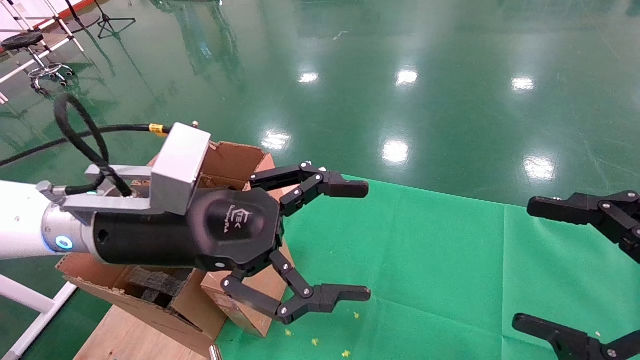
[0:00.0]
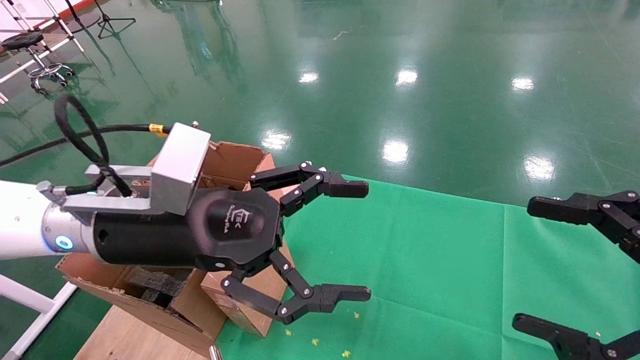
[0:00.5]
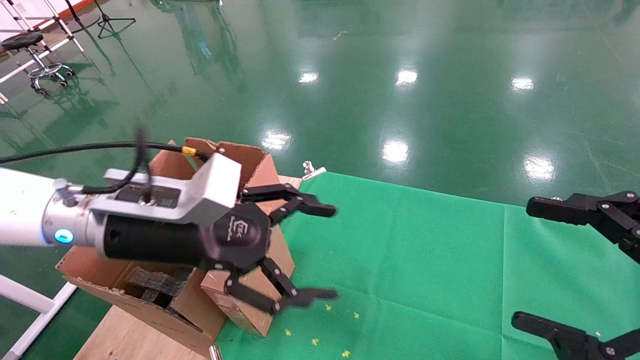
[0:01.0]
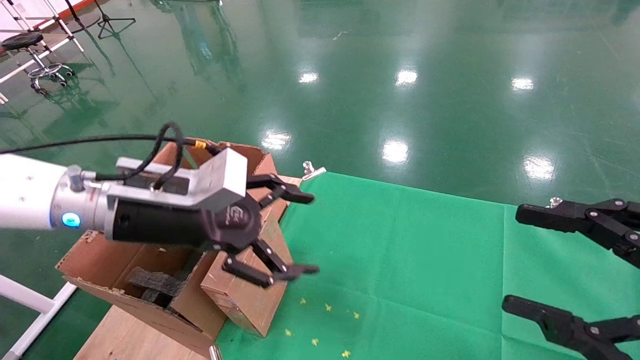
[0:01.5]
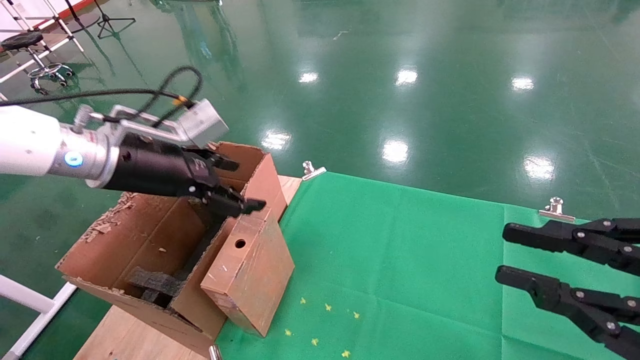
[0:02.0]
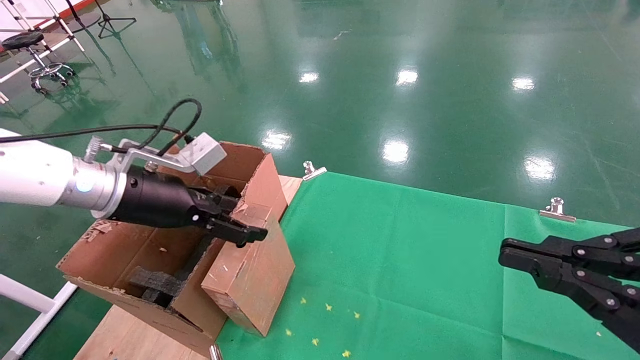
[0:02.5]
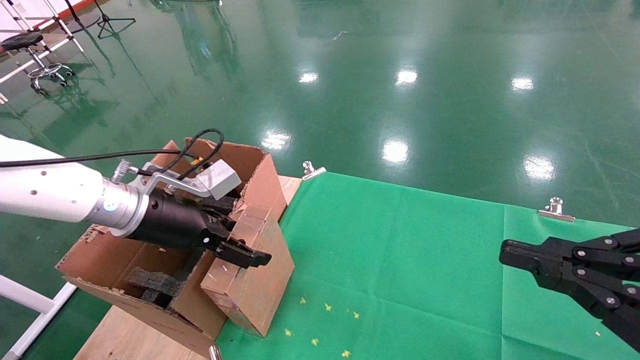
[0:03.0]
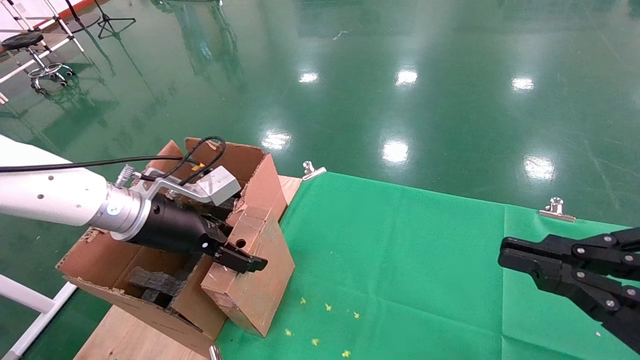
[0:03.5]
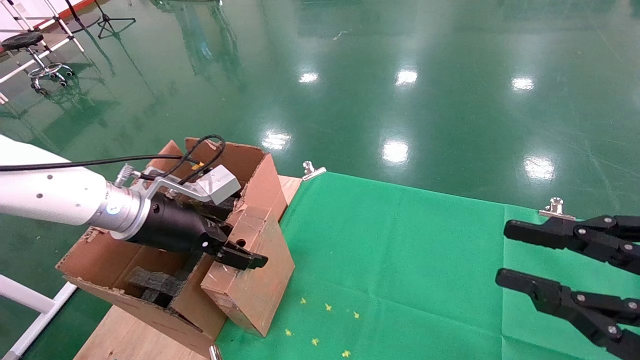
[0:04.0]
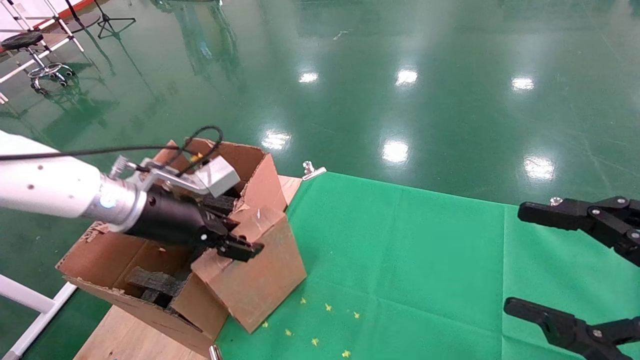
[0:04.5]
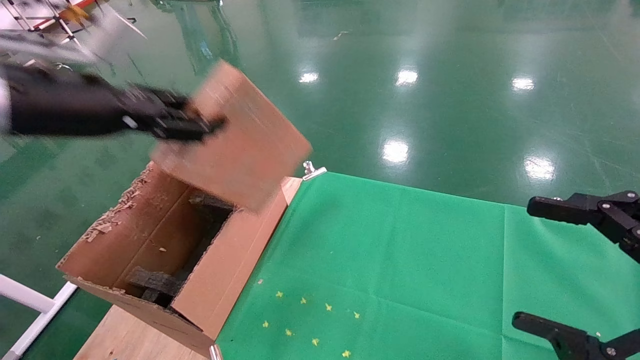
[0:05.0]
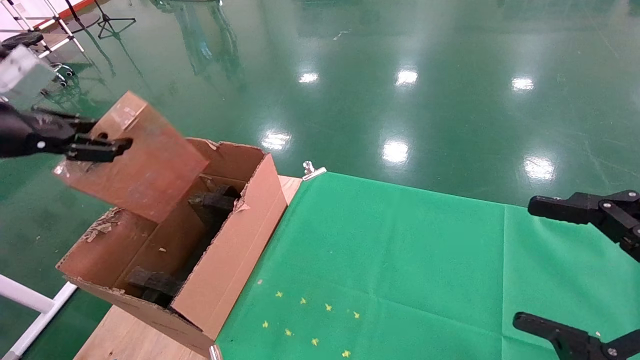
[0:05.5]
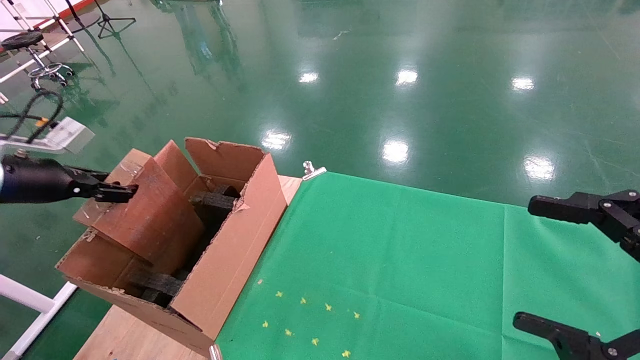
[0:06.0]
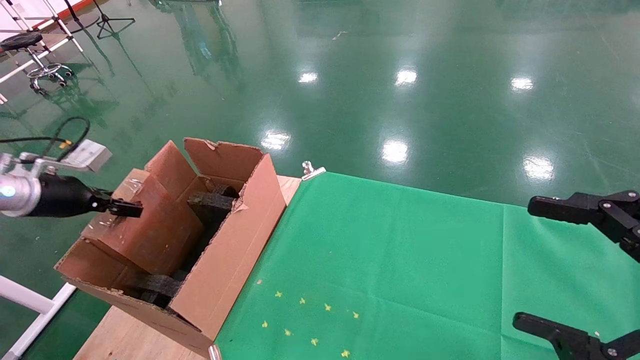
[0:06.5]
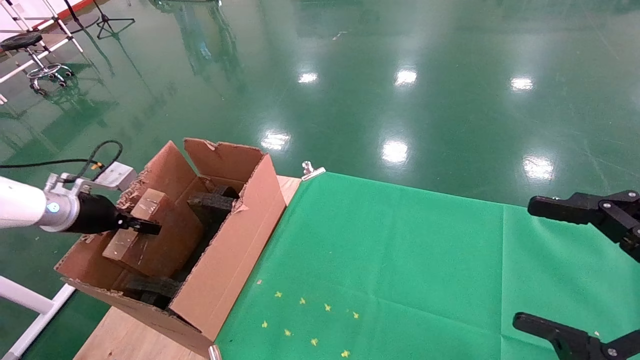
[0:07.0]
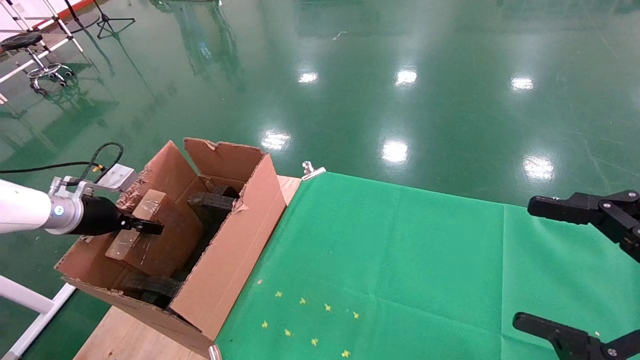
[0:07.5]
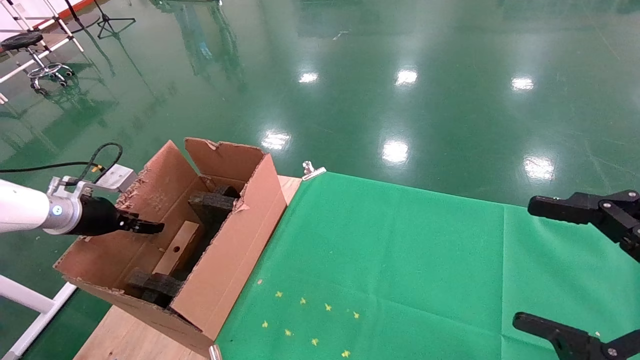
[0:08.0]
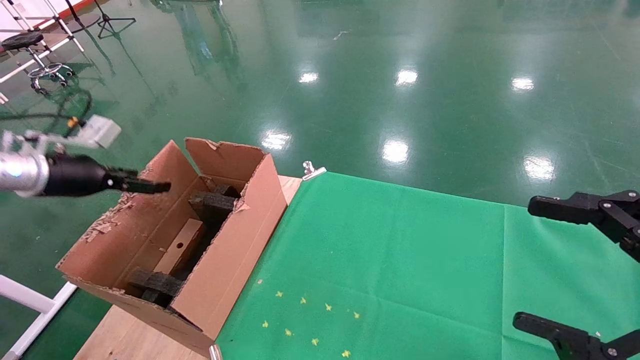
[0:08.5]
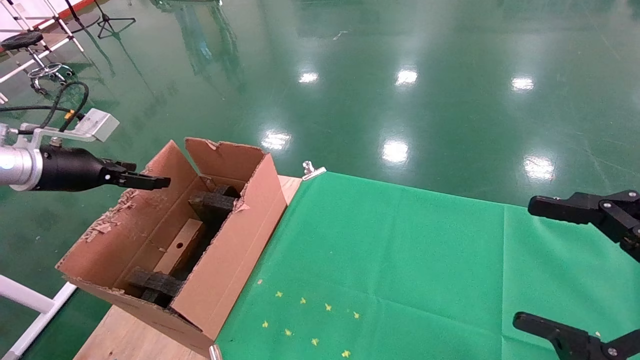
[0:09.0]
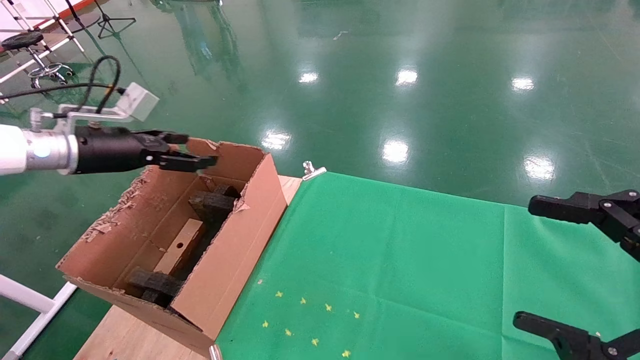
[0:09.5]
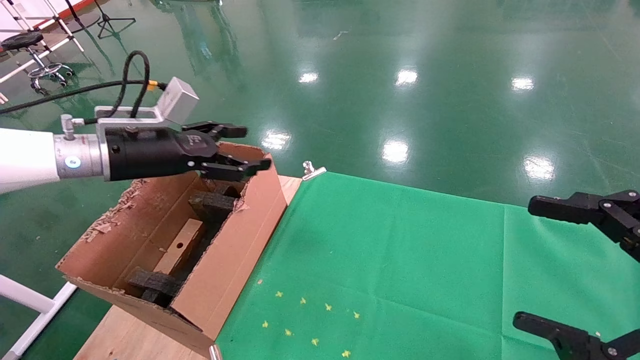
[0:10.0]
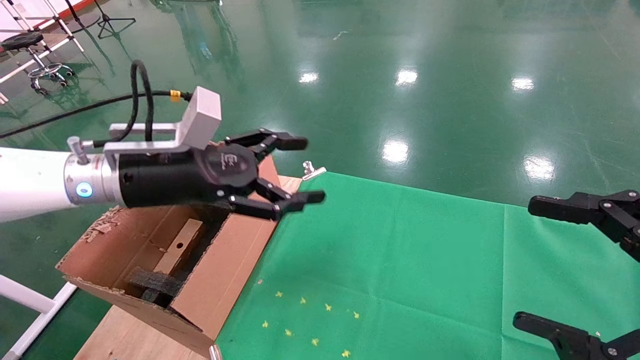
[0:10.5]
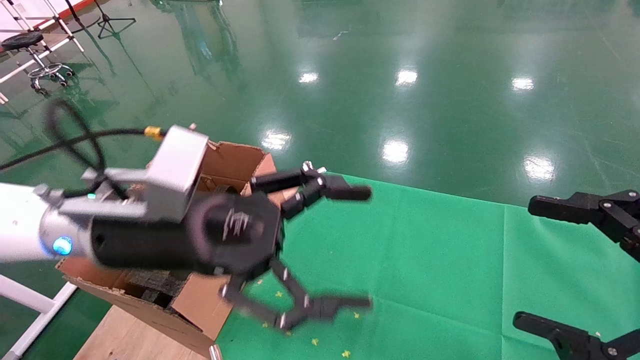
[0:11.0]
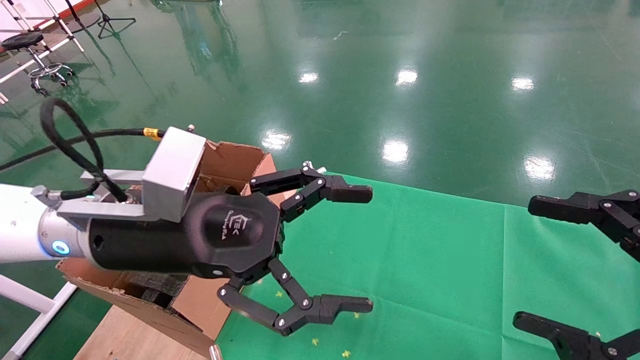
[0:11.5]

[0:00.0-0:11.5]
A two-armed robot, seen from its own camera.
Task of the whole recording: using a robotic arm to pick up a cardboard box and palace it the carton.
Step, 0:01.0 to 0:04.5: Pick up the mouse and the power cord paper box.
Step, 0:05.0 to 0:07.5: Place the mouse and the power cord paper box into the container.
0:00.0 to 0:02.0: The right gripper closes its fingers. The left gripper is displaced to the left and forward by approximately 10 cm.
0:02.0 to 0:04.0: The left gripper shifts approximately 5 cm downward.
0:04.0 to 0:06.0: The right gripper opens up. The left gripper shifts about 25 cm to the left, and closes up.
0:06.0 to 0:07.5: The left gripper goes approximately 10 cm downward and forward.
0:07.5 to 0:09.5: The left gripper shifts roughly 15 cm upward and to the right, and opens its fingers.
0:09.5 to 0:11.5: The left gripper goes some 25 cm to the right and backward.

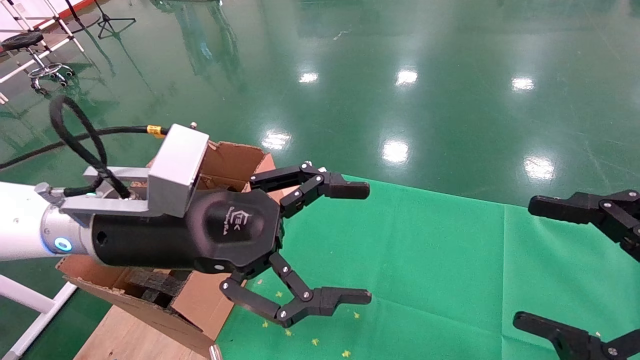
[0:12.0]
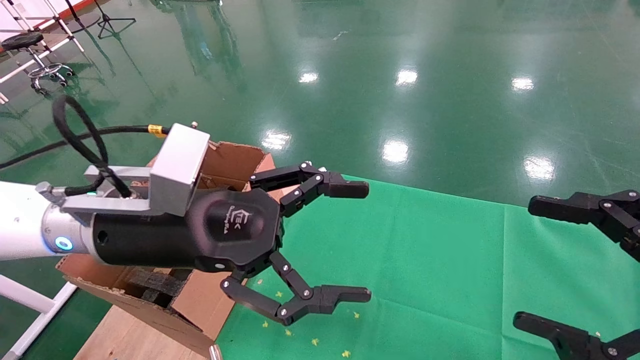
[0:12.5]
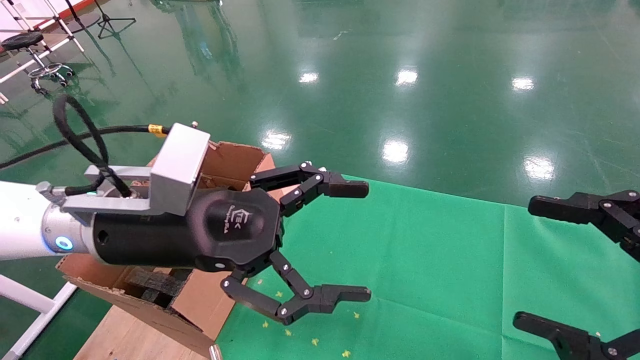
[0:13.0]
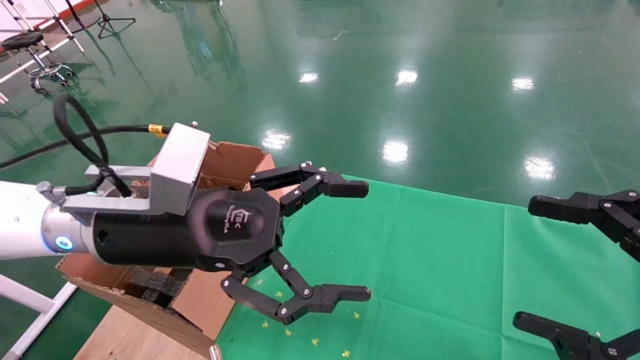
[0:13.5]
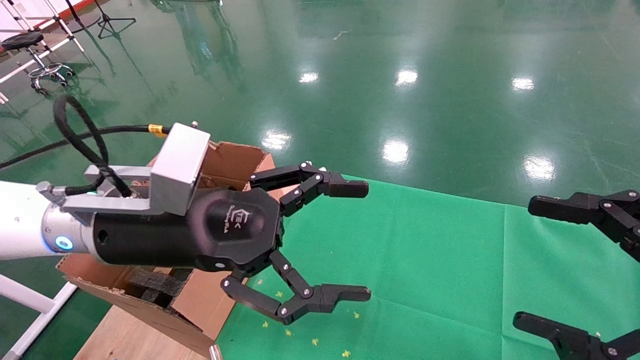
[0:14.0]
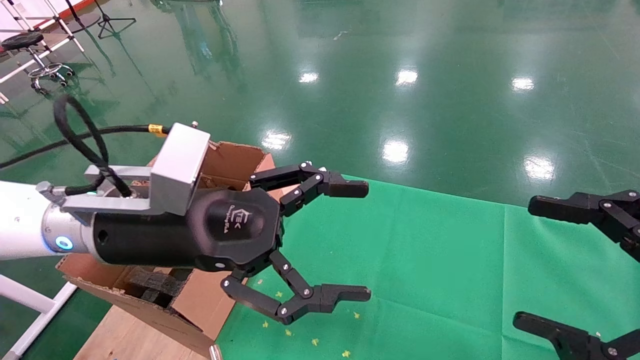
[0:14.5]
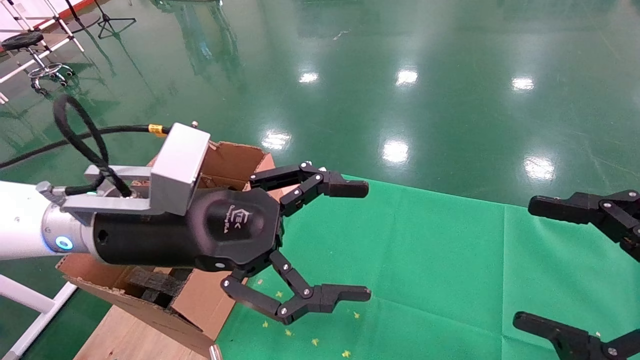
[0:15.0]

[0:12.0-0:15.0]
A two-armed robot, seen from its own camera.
Task of the whole recording: using a robotic arm to pick up a cardboard box and palace it the carton.
0:12.0 to 0:15.0: Both grippers stay put.
